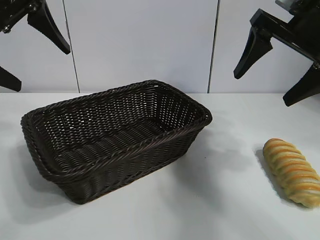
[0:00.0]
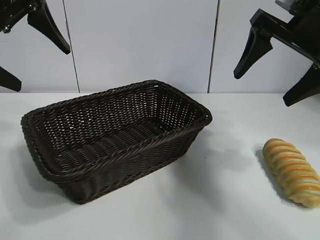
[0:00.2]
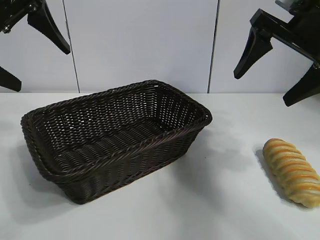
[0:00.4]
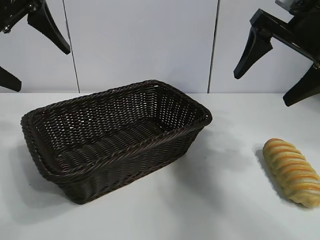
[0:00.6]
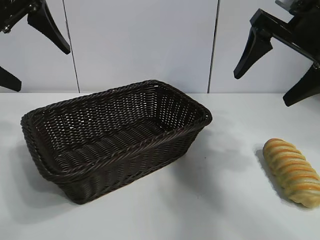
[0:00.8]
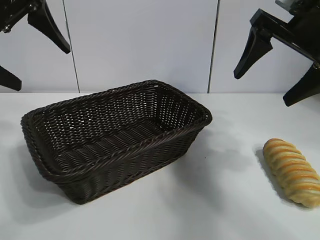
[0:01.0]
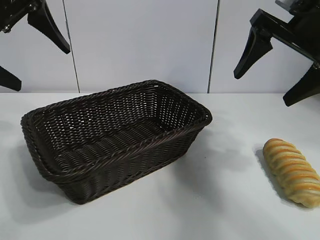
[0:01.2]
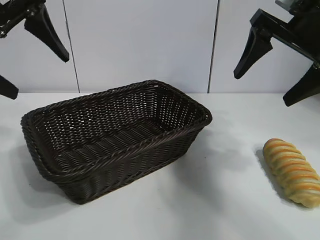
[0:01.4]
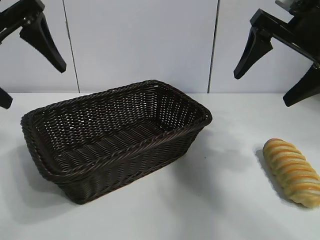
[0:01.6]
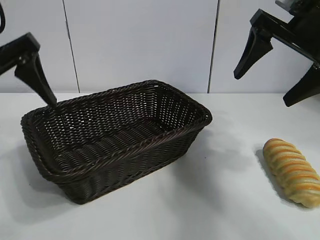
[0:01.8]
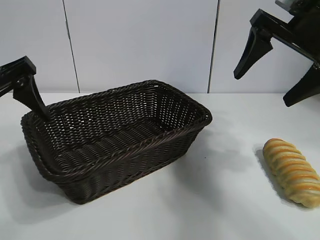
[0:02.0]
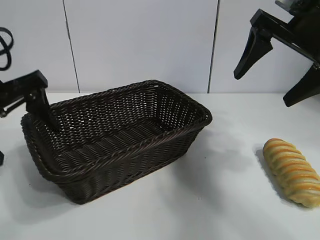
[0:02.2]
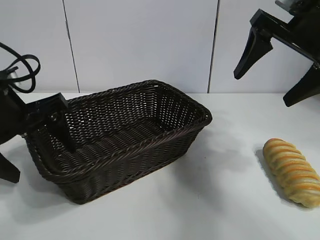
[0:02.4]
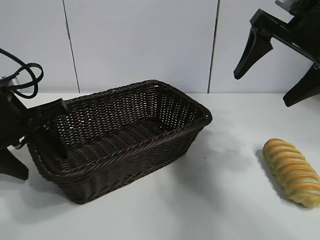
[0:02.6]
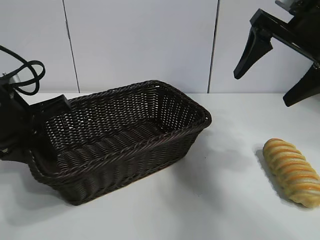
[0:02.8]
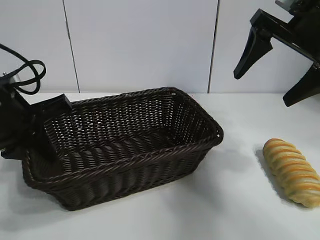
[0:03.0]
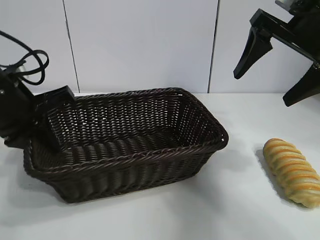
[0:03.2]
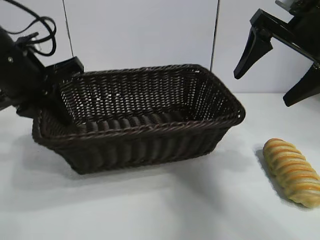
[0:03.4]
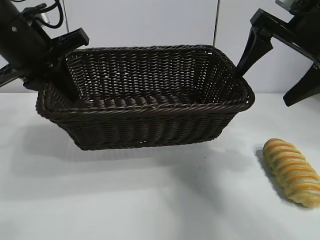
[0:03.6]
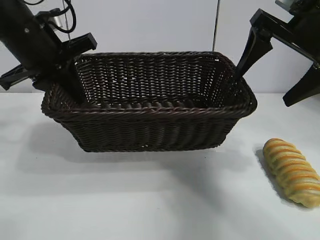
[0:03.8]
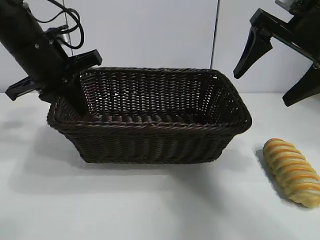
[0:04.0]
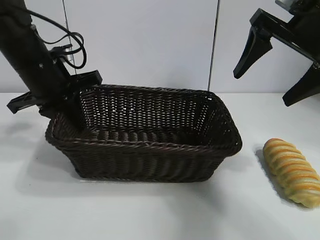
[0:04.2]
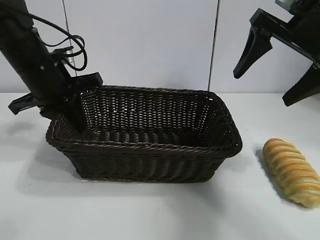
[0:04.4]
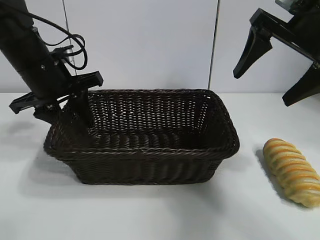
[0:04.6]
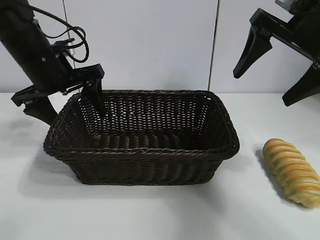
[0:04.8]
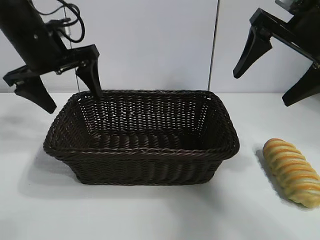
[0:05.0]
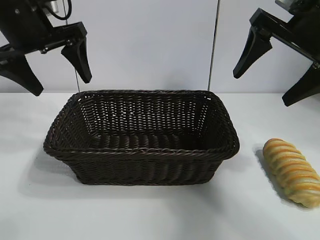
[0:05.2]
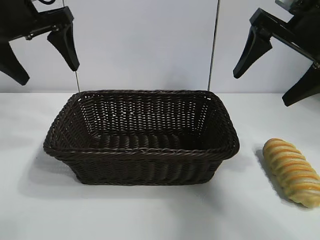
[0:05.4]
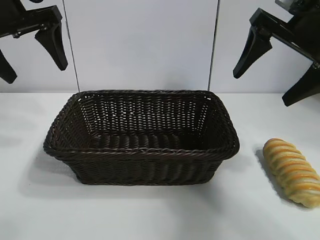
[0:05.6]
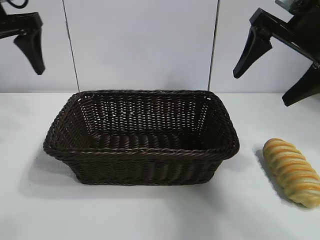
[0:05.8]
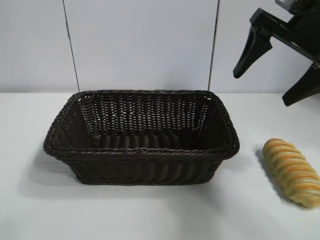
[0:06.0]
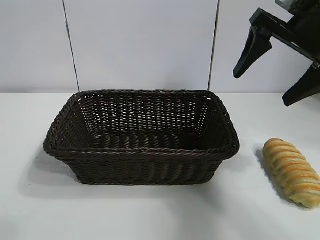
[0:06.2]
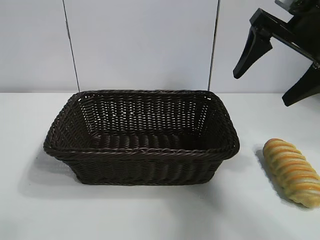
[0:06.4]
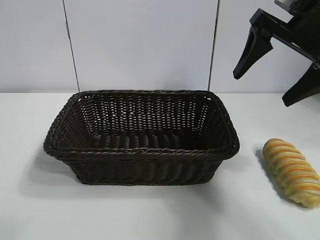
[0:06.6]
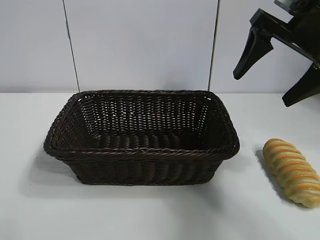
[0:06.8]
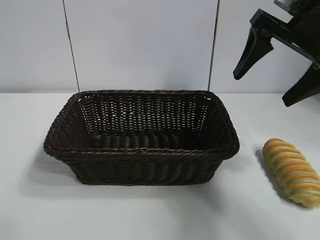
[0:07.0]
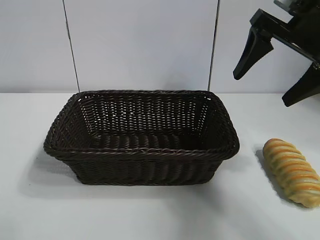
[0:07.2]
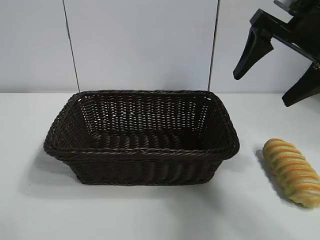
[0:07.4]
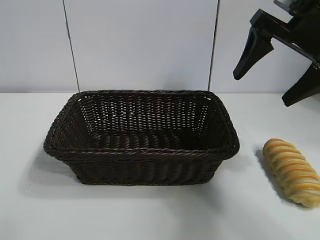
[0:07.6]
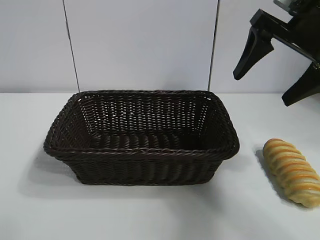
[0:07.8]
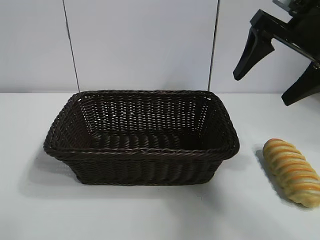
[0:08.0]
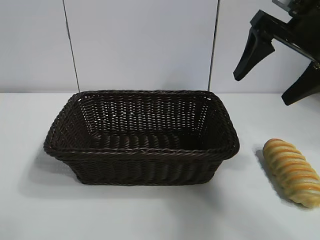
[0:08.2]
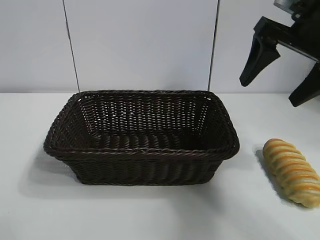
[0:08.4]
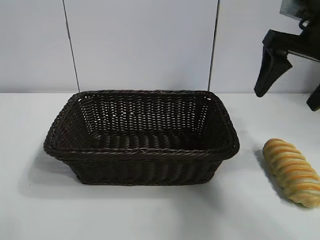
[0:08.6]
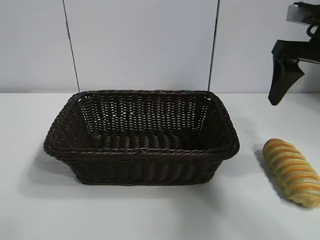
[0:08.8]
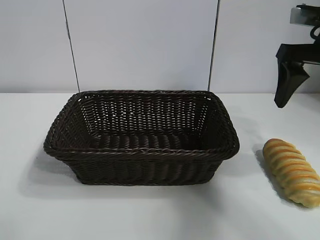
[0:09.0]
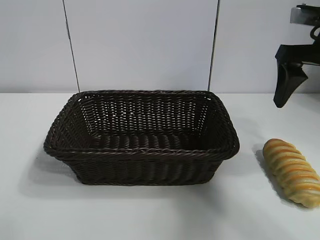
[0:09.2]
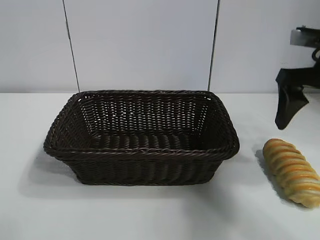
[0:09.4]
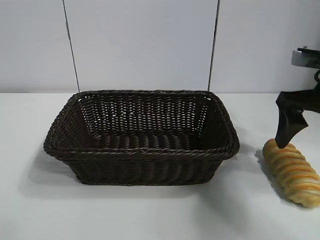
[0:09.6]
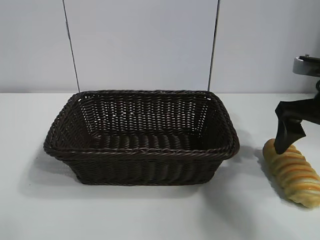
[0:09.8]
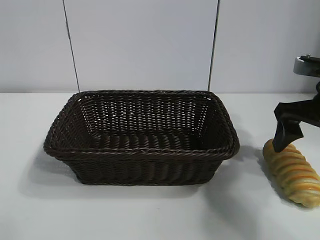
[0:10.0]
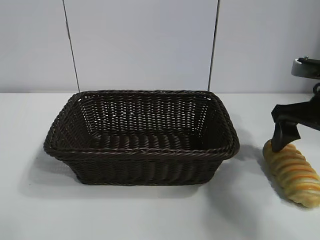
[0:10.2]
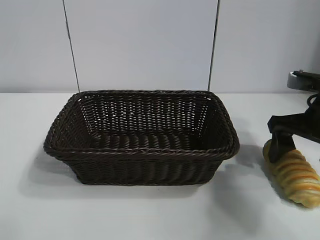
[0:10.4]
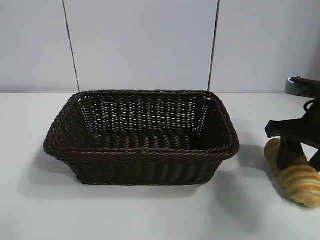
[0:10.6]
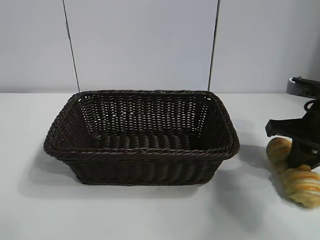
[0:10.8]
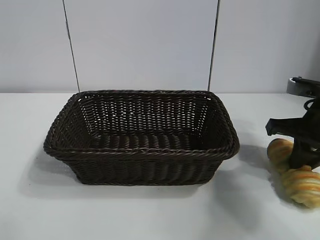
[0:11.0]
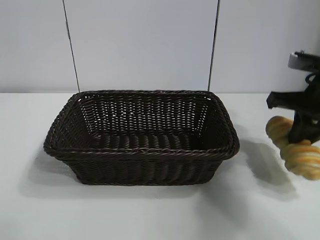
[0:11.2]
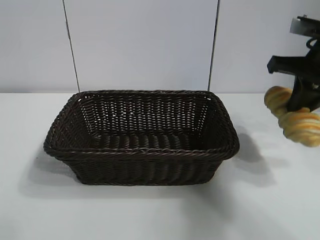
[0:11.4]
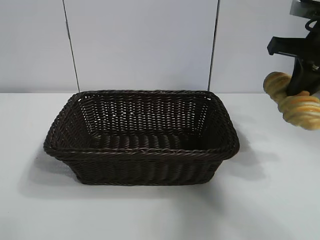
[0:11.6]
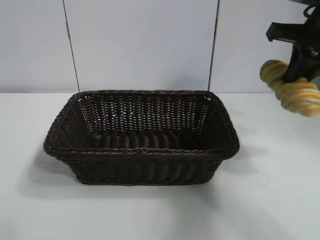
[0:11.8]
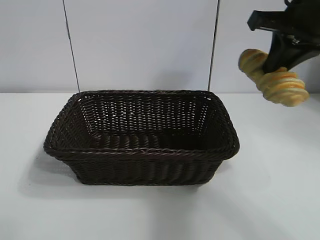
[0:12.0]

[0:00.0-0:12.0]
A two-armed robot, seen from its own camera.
Task of the whole recording: pick up the long bread and put it into the basket.
Step, 0:01.0 to 0:03.0: Grasp the basket with the left gripper.
Step, 0:03.2 to 0:04.8: Place the basket in the center of the table with the left gripper.
Step, 0:05.0 to 0:10.8: Grasp the long bread with right gripper.

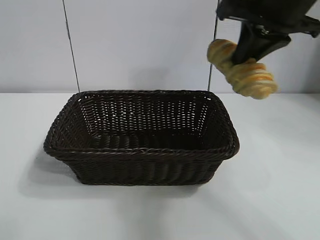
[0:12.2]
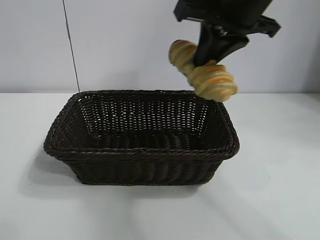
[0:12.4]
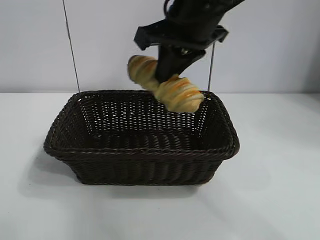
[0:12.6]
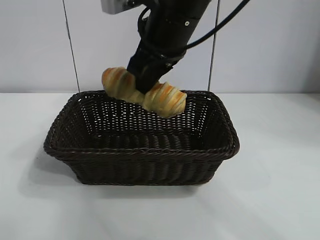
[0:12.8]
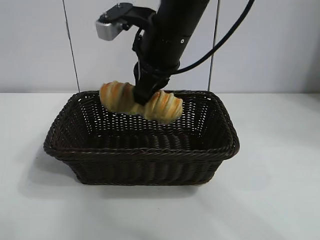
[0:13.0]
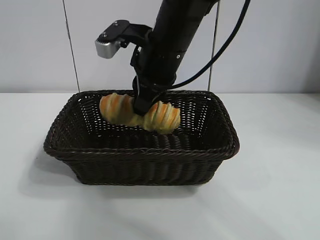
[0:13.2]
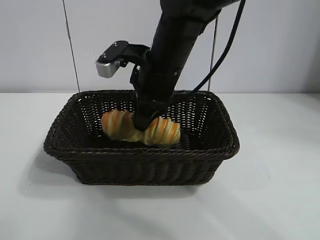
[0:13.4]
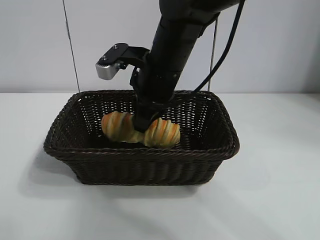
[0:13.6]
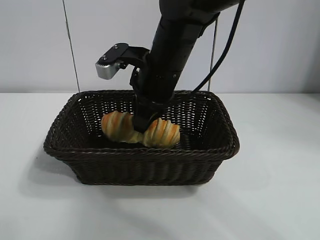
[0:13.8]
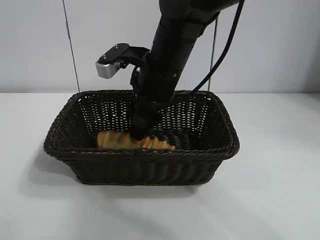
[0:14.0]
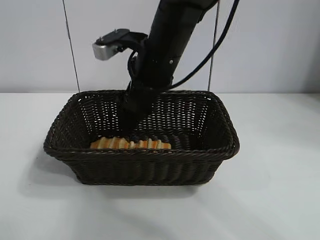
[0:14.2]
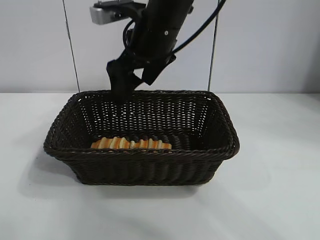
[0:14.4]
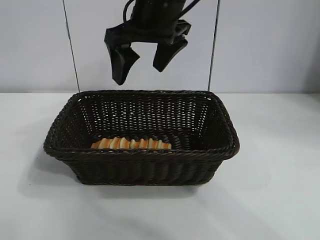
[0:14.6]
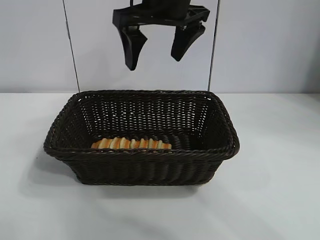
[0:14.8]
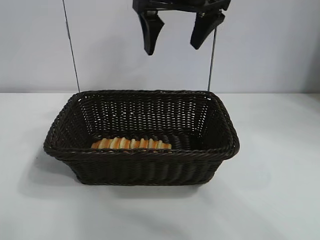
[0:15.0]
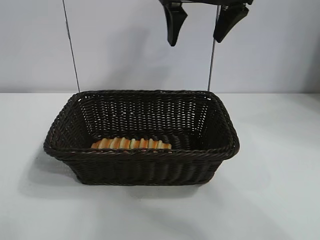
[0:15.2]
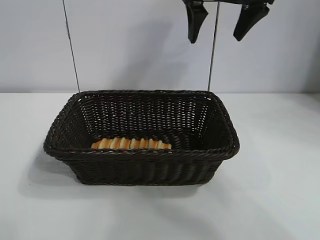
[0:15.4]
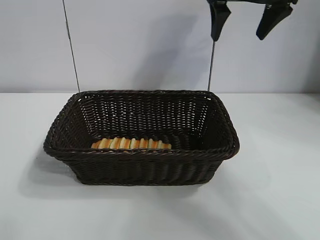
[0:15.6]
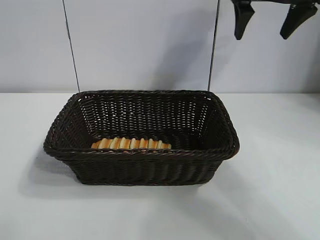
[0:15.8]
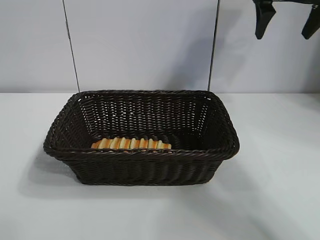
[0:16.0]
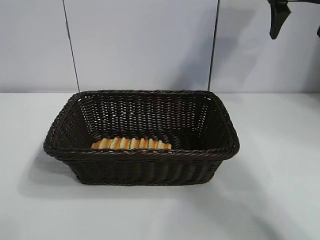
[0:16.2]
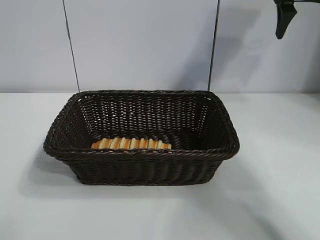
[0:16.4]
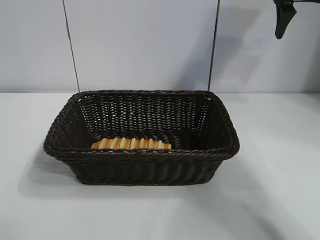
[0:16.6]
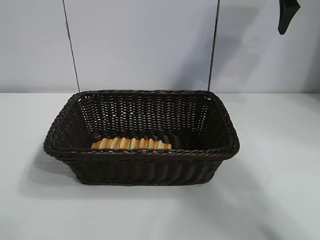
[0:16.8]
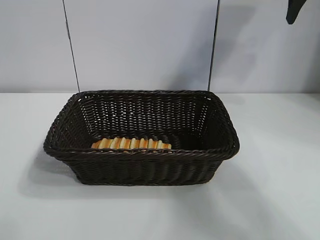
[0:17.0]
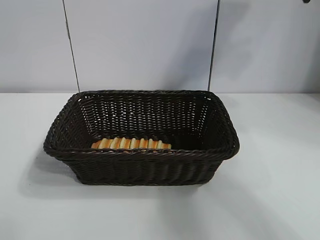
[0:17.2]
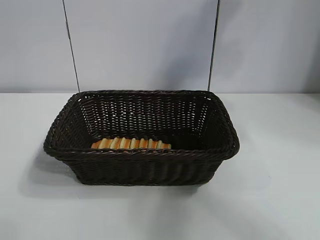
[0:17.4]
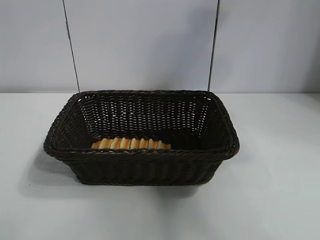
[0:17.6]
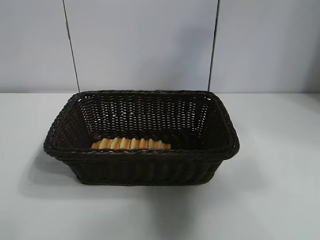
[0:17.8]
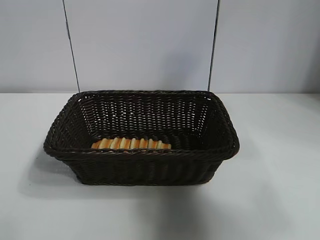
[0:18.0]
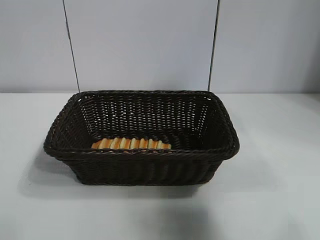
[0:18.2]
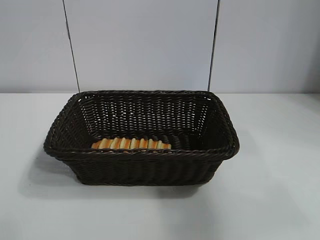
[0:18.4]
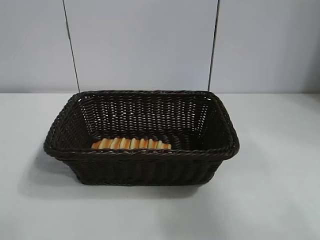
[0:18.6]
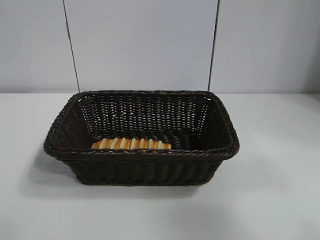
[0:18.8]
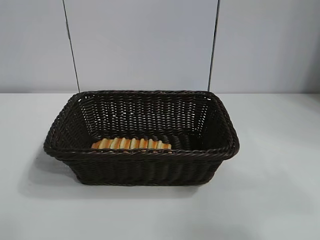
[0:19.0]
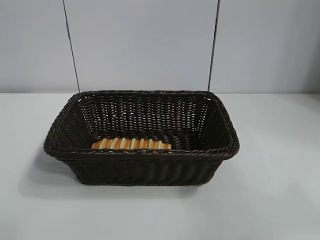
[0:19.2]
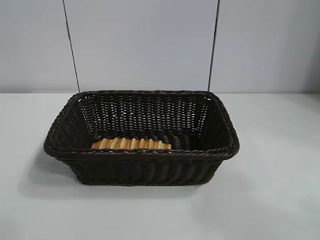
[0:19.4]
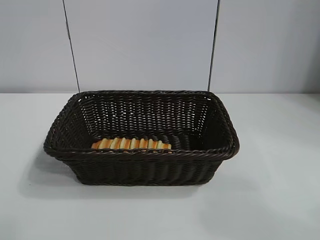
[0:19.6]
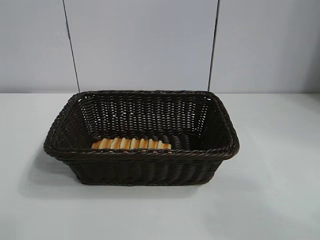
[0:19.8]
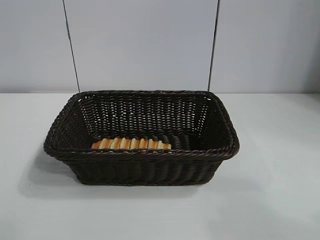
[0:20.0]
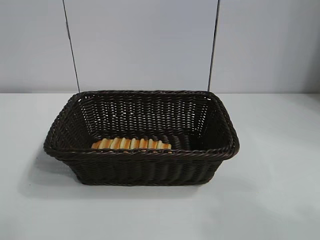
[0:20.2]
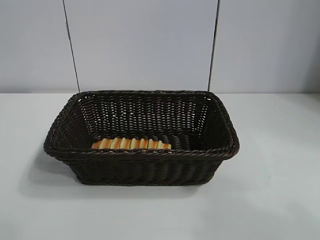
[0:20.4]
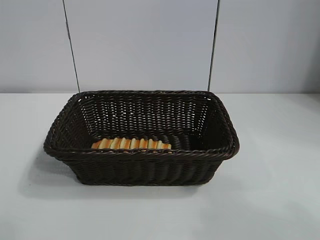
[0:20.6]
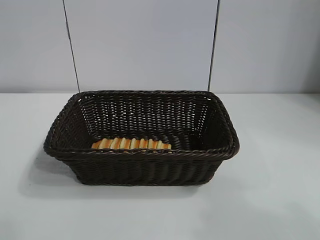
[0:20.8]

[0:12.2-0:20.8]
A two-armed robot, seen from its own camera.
Task of the whole recording: pick up the long bread and put it into the basket.
Step, 0:12.2 to 0:14.2: Place the long bread in the basket with right gripper.
